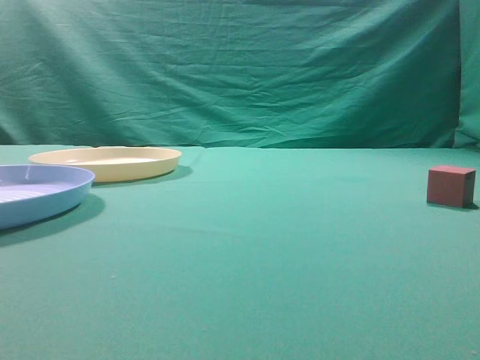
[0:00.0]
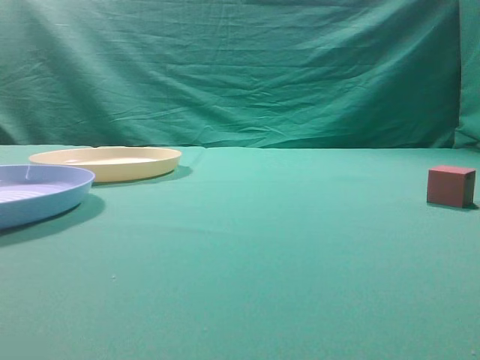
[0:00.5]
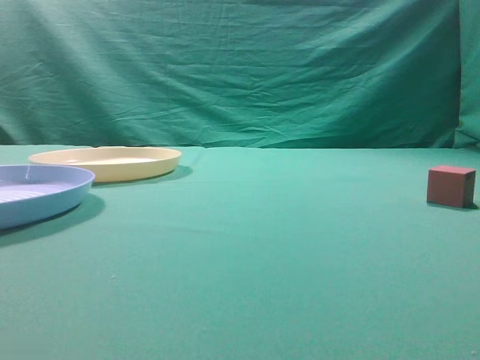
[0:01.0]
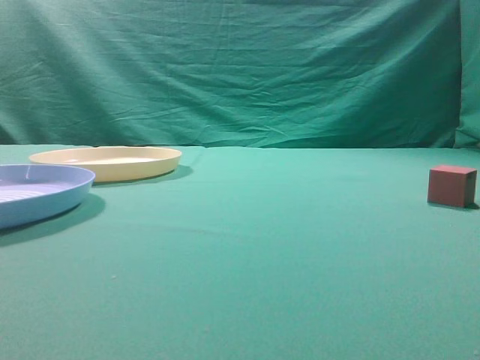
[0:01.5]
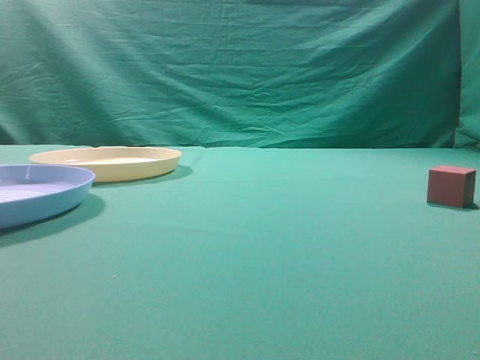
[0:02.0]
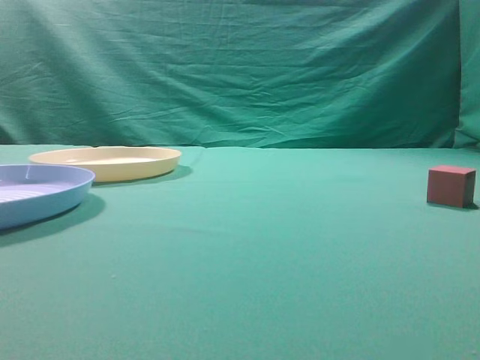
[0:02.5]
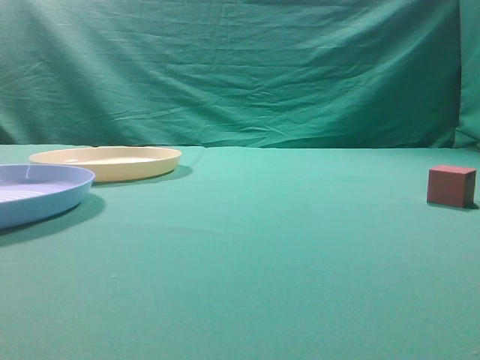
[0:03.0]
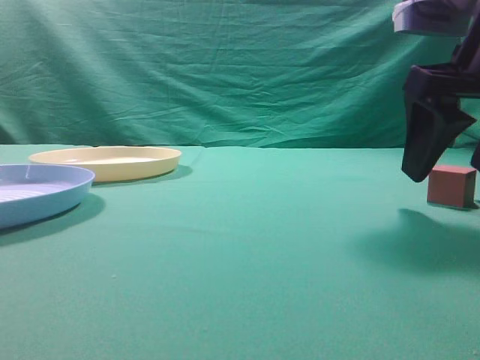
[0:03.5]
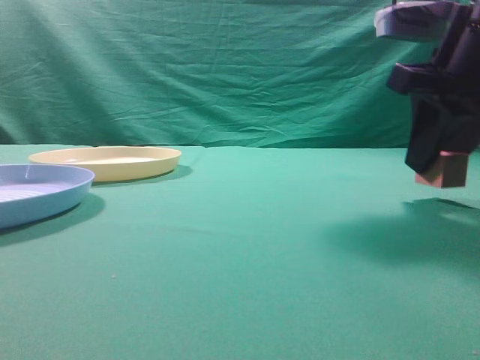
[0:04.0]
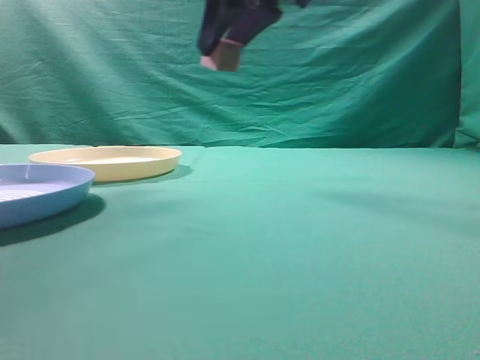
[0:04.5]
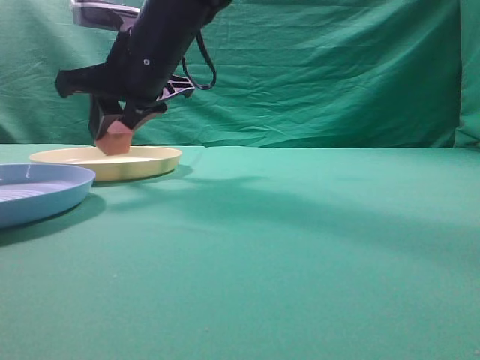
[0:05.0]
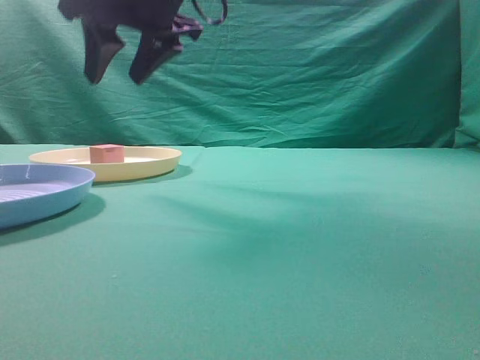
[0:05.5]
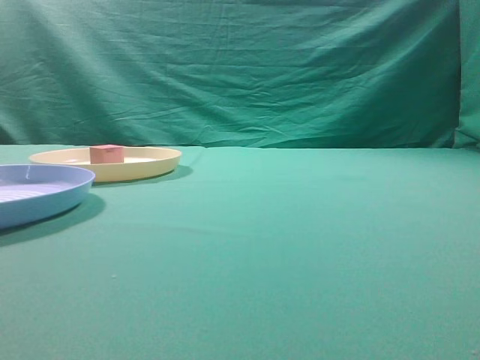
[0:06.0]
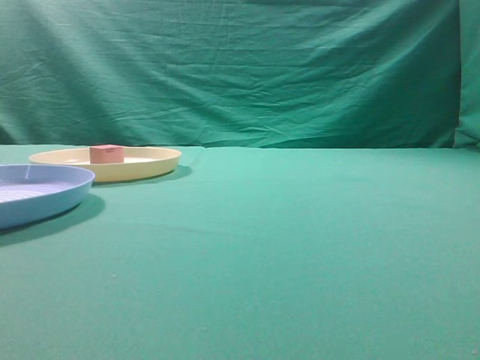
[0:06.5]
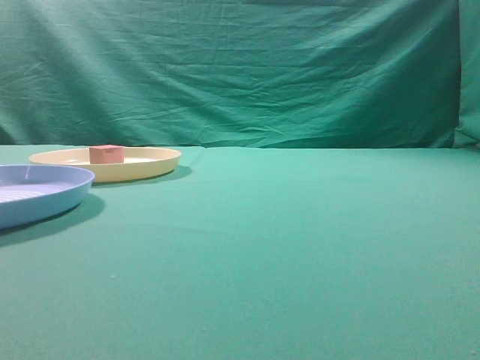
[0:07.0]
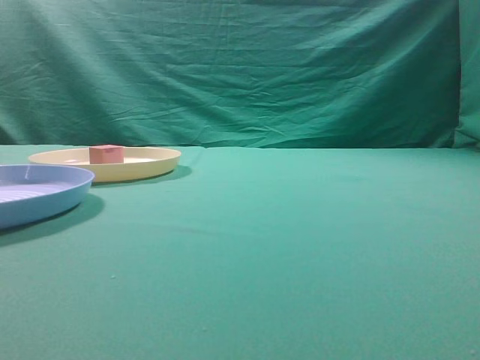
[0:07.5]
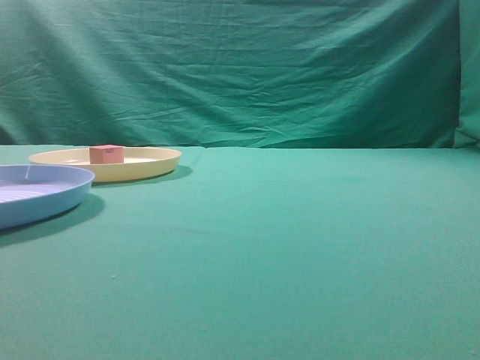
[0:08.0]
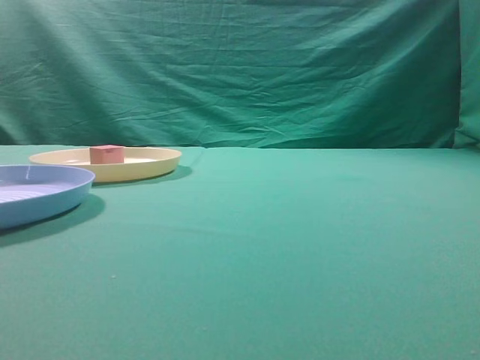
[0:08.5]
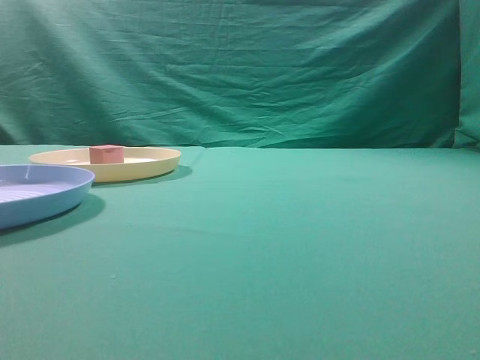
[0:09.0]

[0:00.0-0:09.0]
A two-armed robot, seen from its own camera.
Task of the whole recording: pick up the cube block from the table and put it on the plate.
Step, 0:00.0 to 0:04.0: Grasp the small cube on the table.
Step, 0:04.5 to 0:05.5: Place it into the yellow plate.
0:02.0 to 0:04.5: The right gripper shifts roughly 40 cm forward and to the left, and opens up.
0:04.5 to 0:07.0: The right gripper is displaced backward, to the right and upward by some 30 cm, and closes up.
